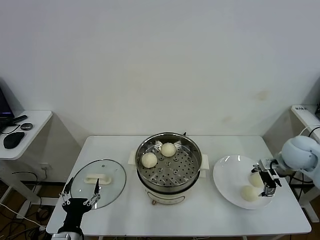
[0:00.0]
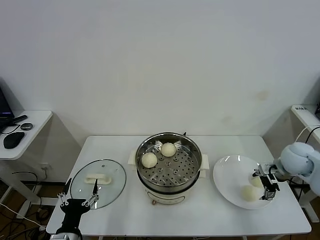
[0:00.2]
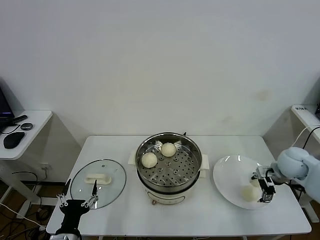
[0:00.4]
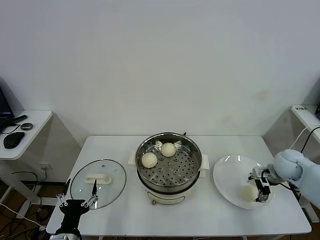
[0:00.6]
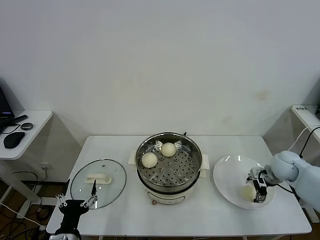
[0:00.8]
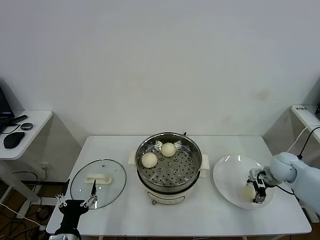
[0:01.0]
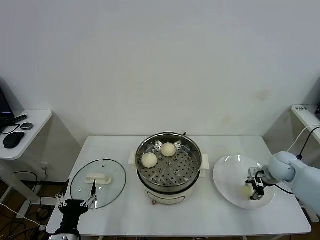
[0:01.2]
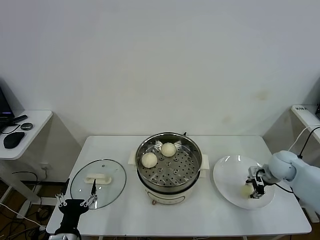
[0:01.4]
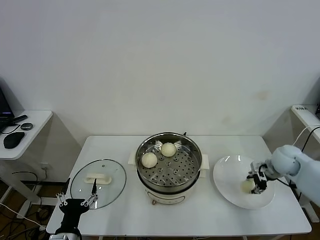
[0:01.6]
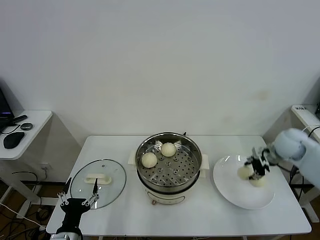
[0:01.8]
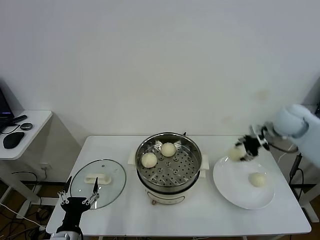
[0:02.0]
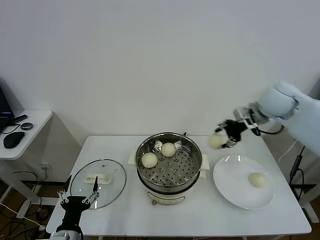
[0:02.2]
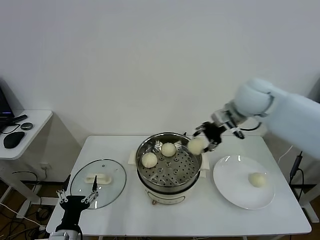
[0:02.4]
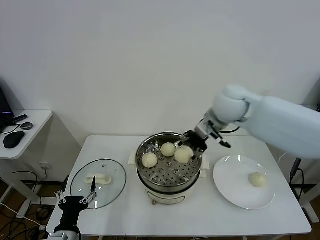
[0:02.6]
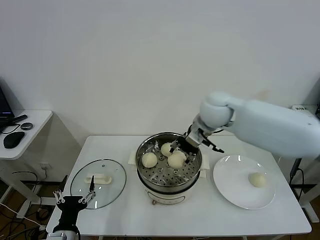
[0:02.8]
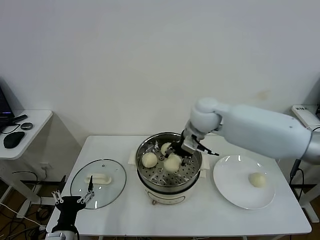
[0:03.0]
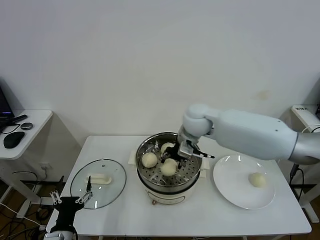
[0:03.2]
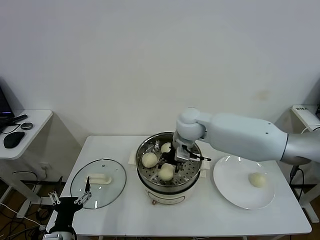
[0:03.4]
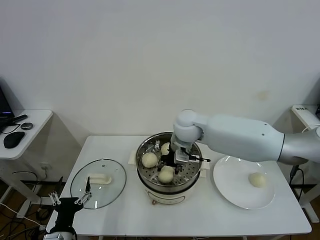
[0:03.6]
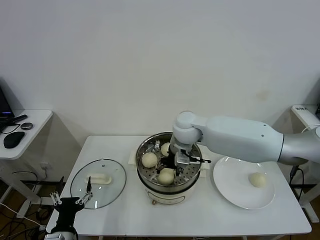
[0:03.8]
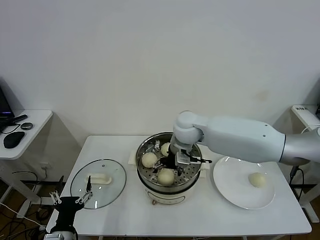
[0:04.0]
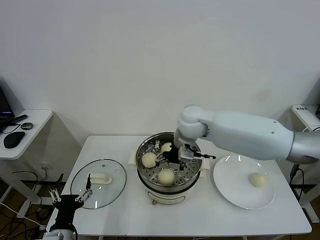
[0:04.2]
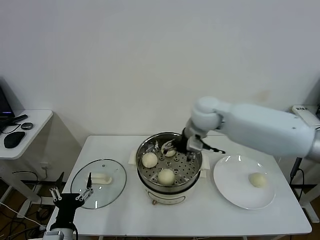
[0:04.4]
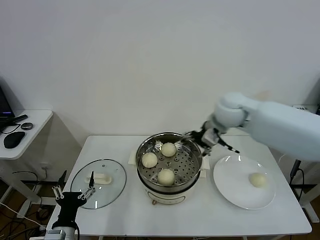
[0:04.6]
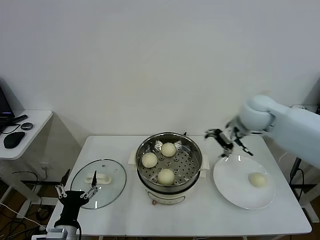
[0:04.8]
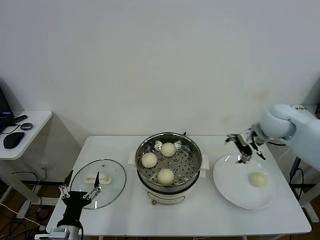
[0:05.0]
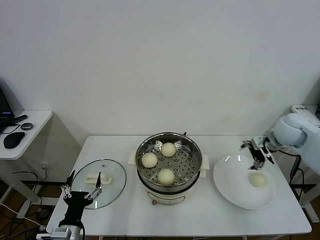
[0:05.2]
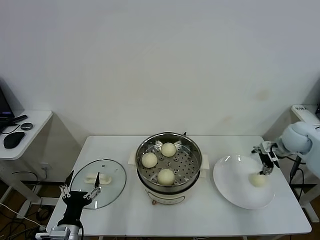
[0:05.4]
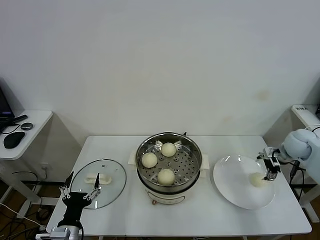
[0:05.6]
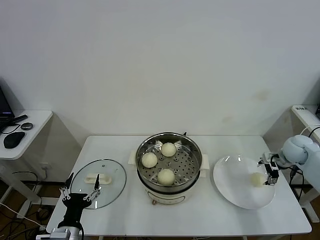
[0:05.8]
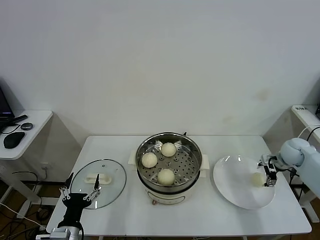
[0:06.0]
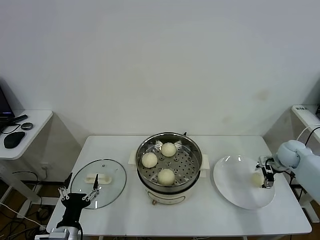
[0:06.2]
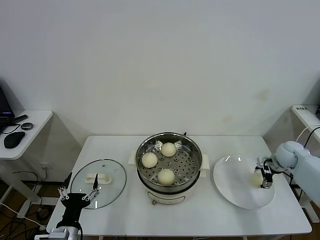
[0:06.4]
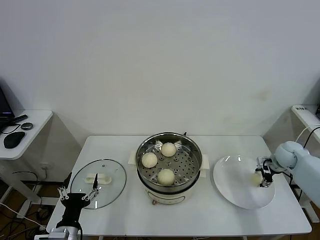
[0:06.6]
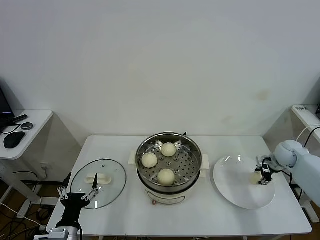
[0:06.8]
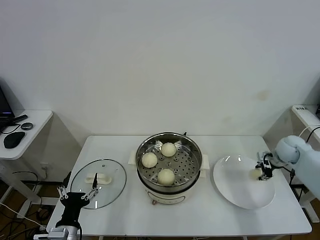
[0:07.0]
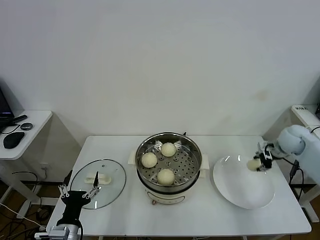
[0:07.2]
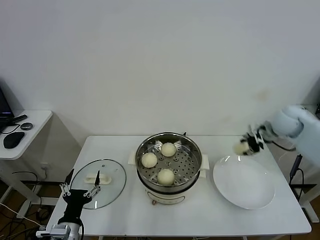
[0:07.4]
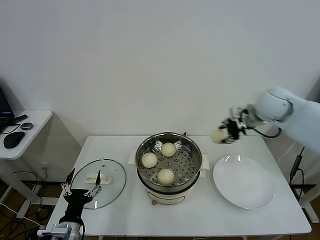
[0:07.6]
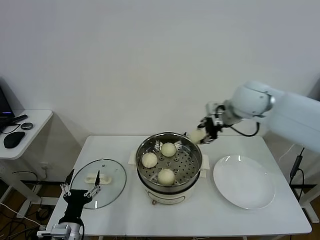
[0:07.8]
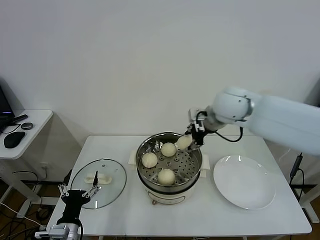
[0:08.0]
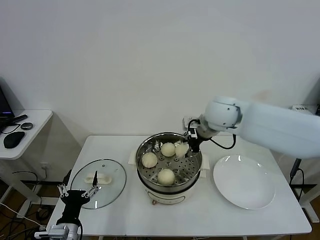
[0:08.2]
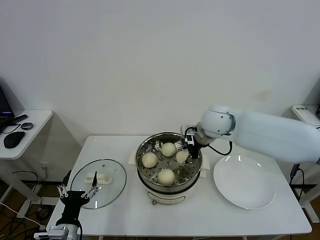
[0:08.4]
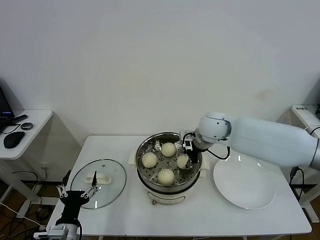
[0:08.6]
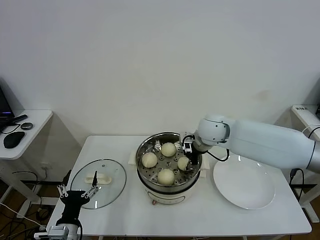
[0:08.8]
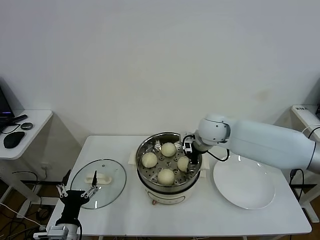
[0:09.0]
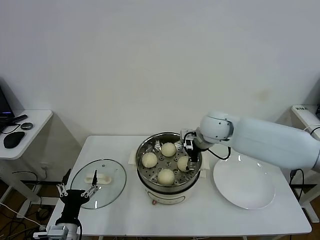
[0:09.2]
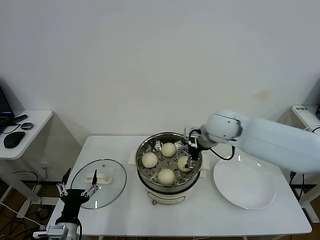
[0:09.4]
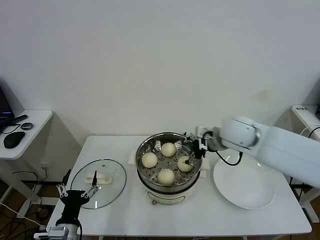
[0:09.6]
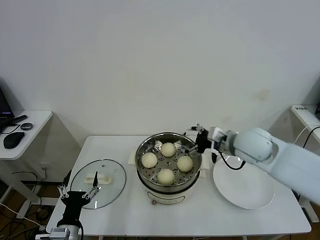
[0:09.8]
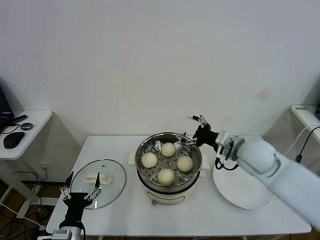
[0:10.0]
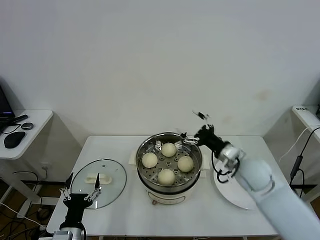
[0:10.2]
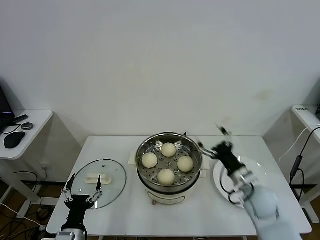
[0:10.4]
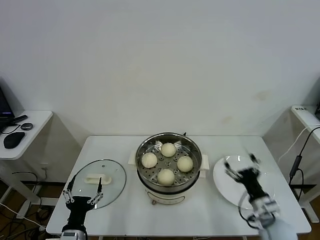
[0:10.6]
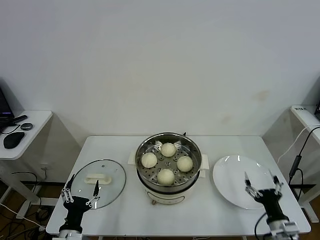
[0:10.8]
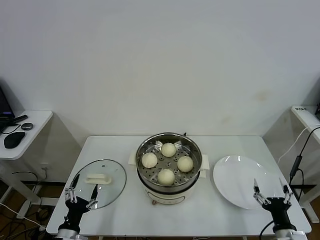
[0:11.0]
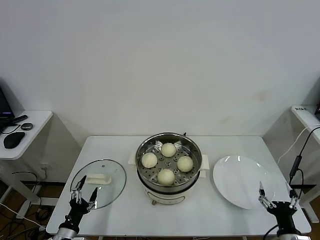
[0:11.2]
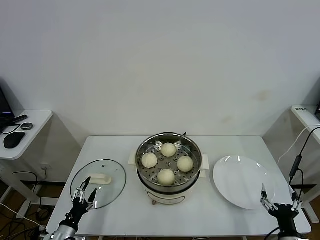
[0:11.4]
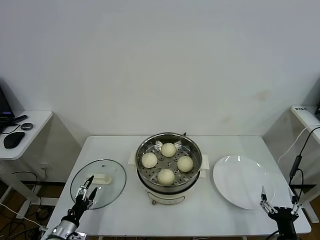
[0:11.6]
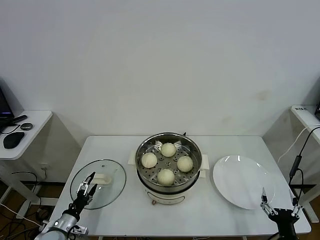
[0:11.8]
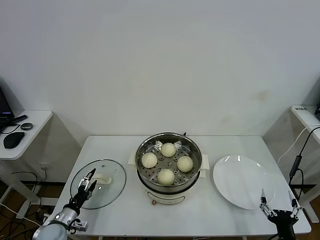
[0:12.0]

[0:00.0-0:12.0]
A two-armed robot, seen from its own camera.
Task of the whole recording: take steamed baozi put them in steamer.
Step, 0.0 to 1.2 s: Grasp the baozi in the plate with right gripper.
Step, 1.4 to 4.2 s: Place the baozi on the steamer with right gripper.
Step, 4.4 to 6.6 s: Grasp the baozi in the plate with right gripper.
Step, 6.8 to 9.2 s: Place the baozi on the steamer with right gripper.
0.0 to 1.6 s: The right gripper is displaced downward by roughly 5 cm, and closes up.
1.6 to 3.0 s: The right gripper moves to the left and upward, roughly 35 cm.
3.0 to 4.4 s: The right gripper opens up.
4.4 to 6.0 s: The right gripper goes roughly 40 cm to the right and downward.
6.0 to 7.6 s: The right gripper travels upward and to the left by roughly 25 cm, and closes.
7.6 to 9.0 s: The right gripper is displaced to the left and downward by roughly 20 cm, and opens up.
9.0 to 10.4 s: The right gripper is displaced backward, downward and to the right by some 25 cm.
10.4 to 12.0 s: The left gripper shifts roughly 20 cm to the left, forward and downward, while the right gripper goes roughly 25 cm backward and downward.

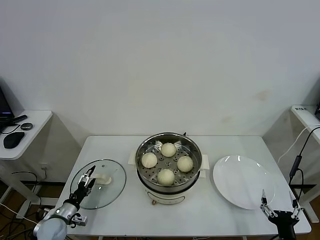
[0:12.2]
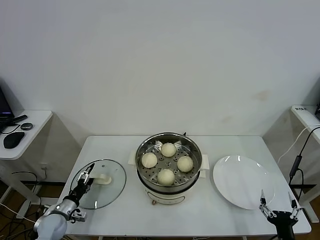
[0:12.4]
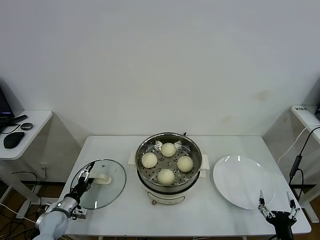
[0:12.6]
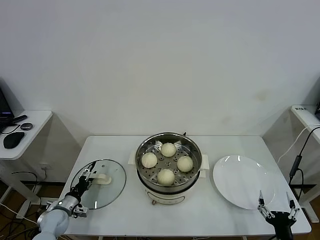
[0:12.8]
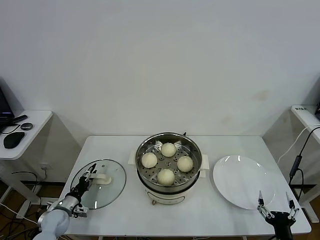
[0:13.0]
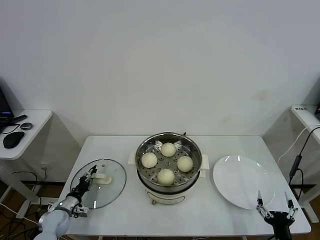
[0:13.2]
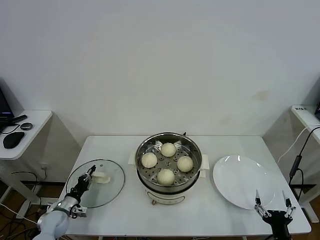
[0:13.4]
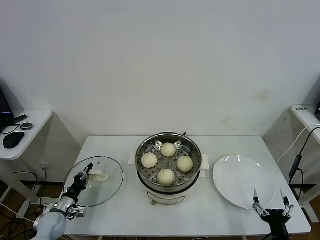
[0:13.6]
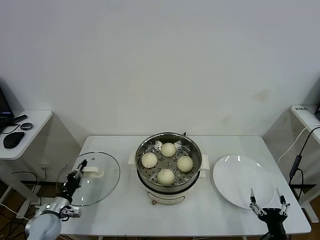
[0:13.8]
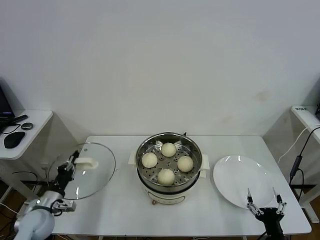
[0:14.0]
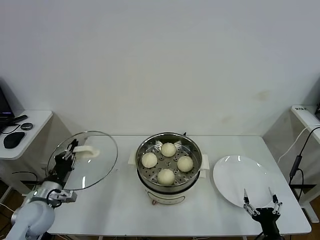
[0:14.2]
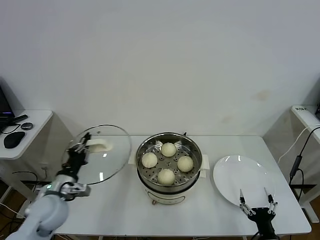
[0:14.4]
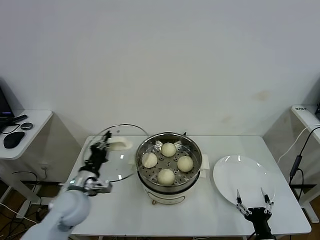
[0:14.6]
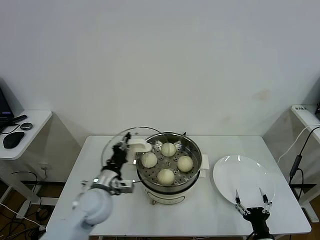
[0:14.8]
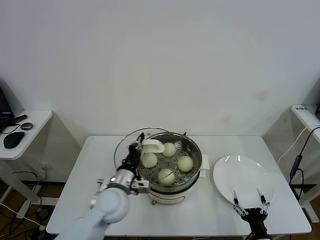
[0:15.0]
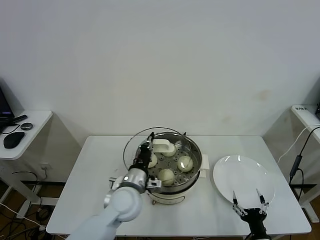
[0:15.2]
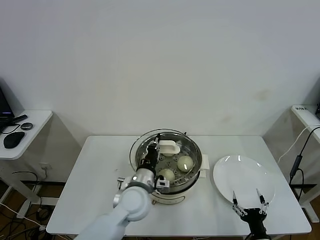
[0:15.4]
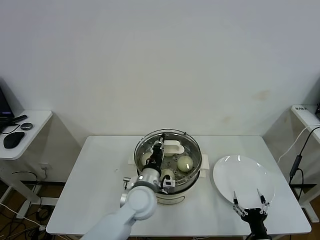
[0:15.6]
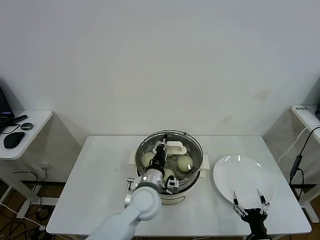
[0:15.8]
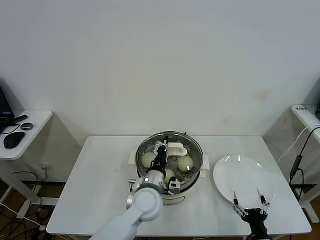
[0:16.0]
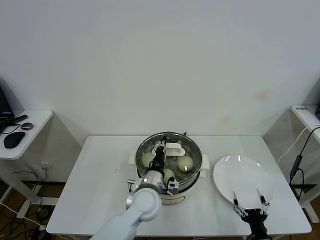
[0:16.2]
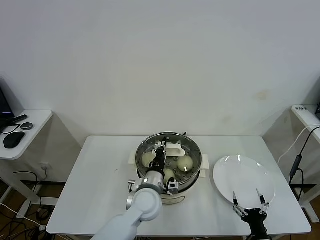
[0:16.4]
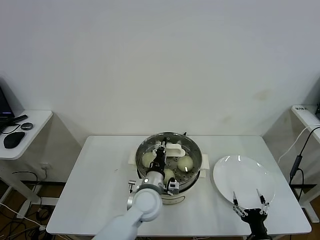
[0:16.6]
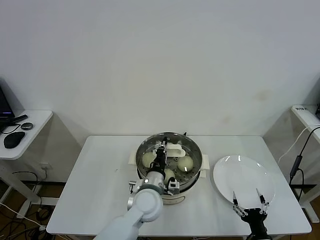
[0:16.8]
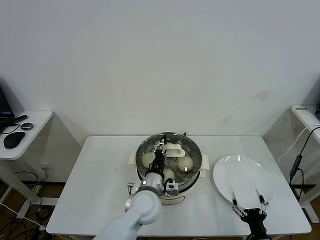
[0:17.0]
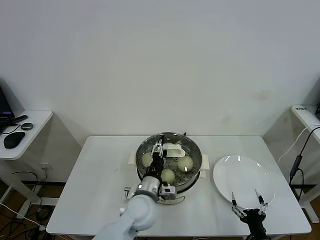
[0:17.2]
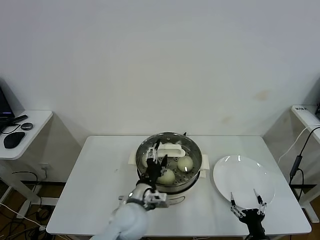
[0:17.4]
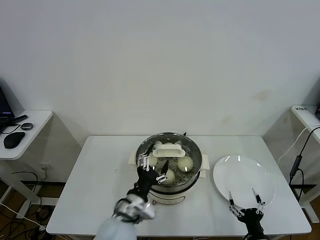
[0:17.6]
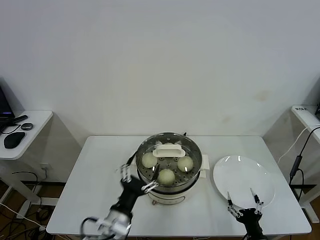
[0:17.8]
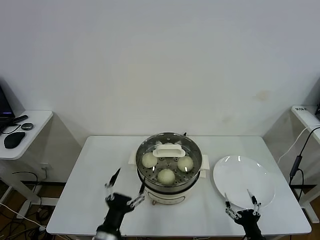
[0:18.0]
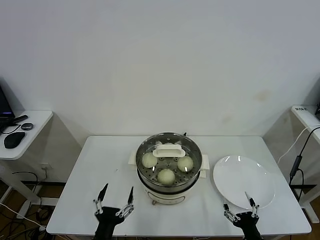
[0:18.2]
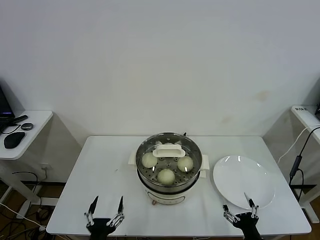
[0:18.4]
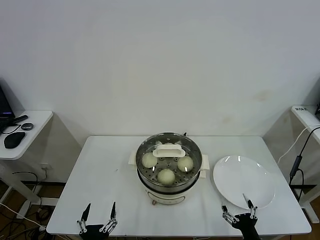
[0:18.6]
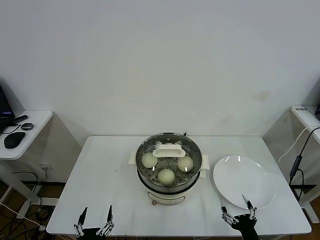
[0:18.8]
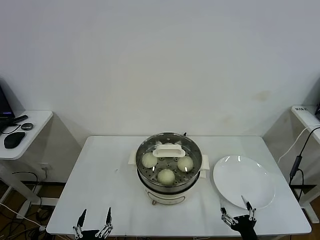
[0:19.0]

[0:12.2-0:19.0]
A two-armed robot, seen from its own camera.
Task of the whole recording: take steamed baozi put them in steamer.
Step, 13.6 to 17.8 s: Place the pot lid on the steamer with left gripper.
12.2 to 13.6 s: The left gripper closes up.
13.6 to 15.0 s: The left gripper moves to the right and upward, roughly 30 cm.
15.0 to 16.2 s: The left gripper shifts roughly 10 cm to the right.
16.2 to 17.6 s: The left gripper shifts roughly 10 cm backward and to the left, and opens its fingers.
17.6 to 19.0 s: The left gripper travels backward, to the left and downward by roughly 25 cm.

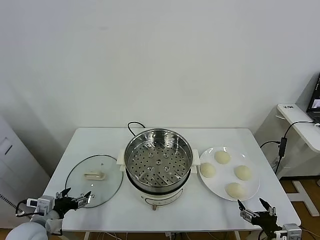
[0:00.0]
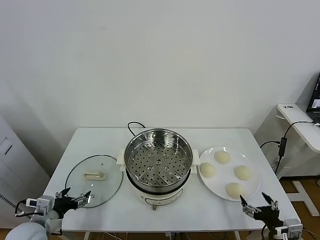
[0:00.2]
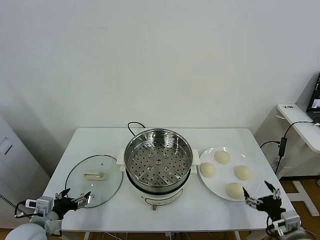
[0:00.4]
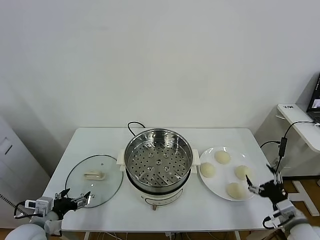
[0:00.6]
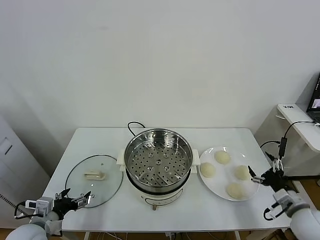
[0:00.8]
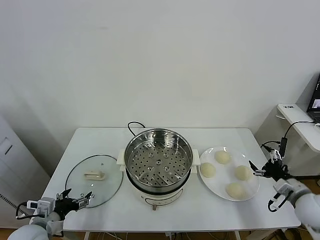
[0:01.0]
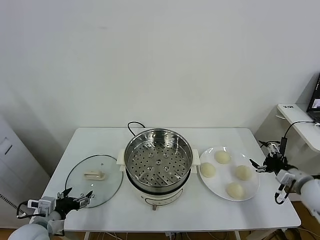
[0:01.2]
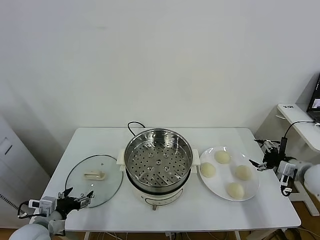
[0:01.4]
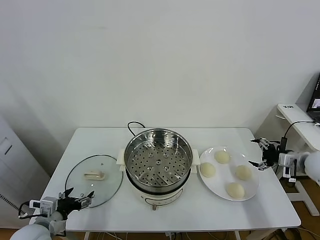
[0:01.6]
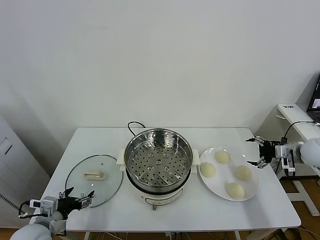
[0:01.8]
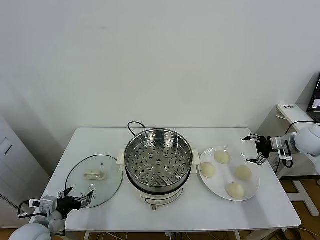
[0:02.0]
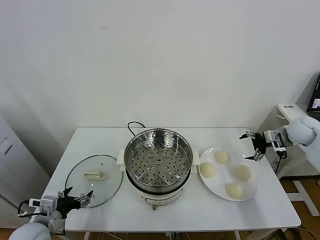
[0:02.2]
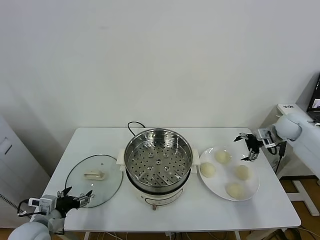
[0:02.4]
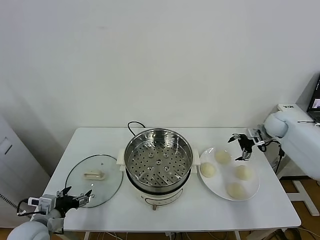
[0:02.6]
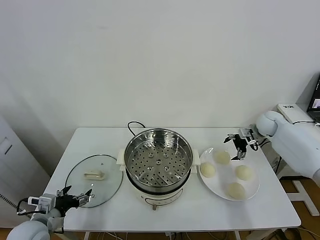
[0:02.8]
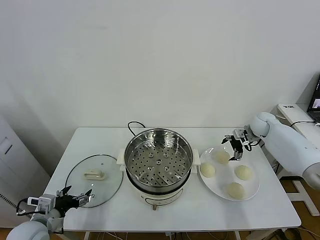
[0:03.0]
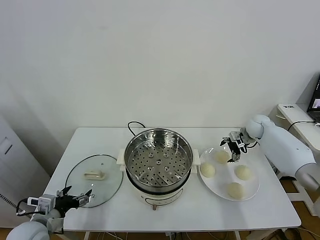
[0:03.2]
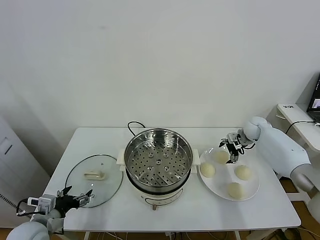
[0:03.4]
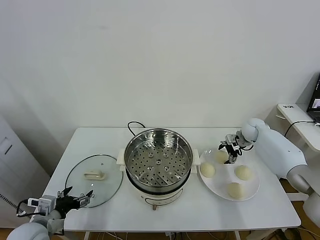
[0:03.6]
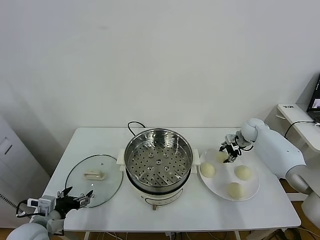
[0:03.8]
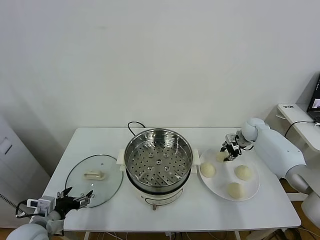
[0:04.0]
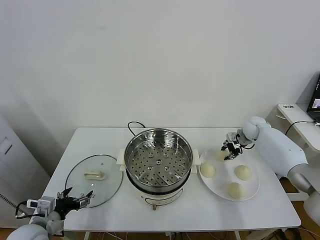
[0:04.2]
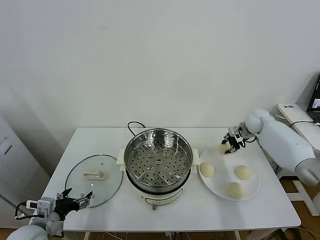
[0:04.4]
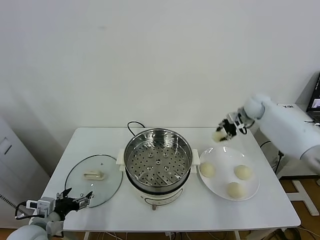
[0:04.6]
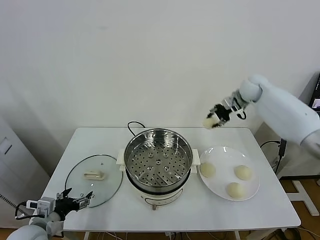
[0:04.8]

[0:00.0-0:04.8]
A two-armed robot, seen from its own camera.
Task of the whole recording: take steamed baozi put them in steamer.
Step, 0.0 to 3.6 s: Grasp the baozi in the plate with right gripper.
1.6 to 3.2 s: The right gripper heads forward and to the left, covering approximately 20 cm.
3.2 to 4.8 s: The right gripper heads upward and to the left, covering about 20 cm, and closes up.
